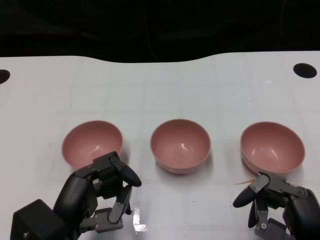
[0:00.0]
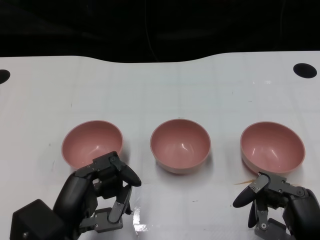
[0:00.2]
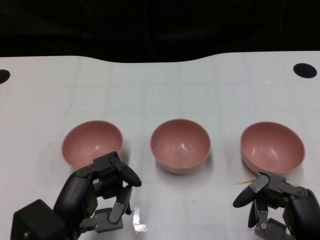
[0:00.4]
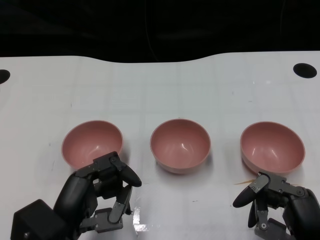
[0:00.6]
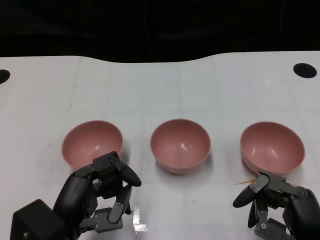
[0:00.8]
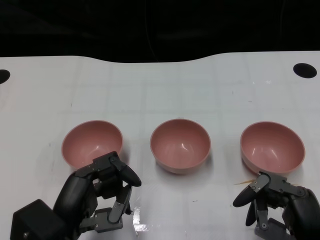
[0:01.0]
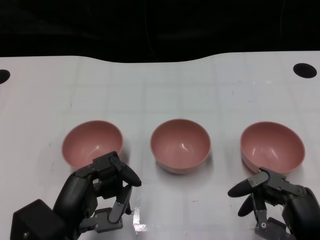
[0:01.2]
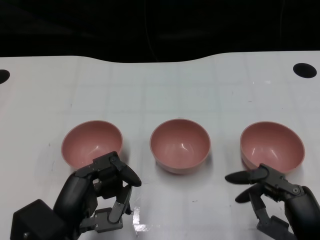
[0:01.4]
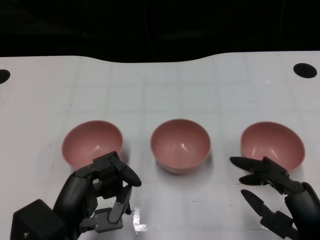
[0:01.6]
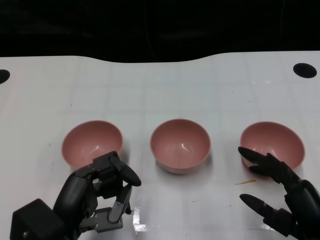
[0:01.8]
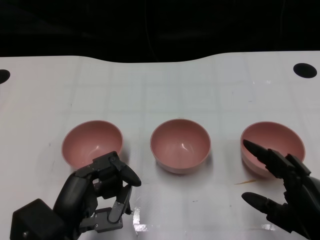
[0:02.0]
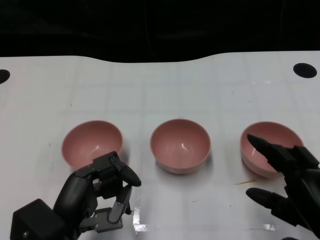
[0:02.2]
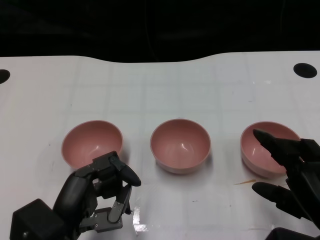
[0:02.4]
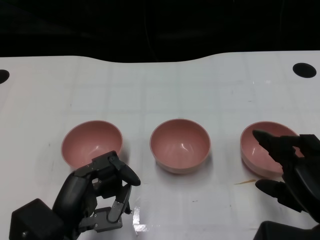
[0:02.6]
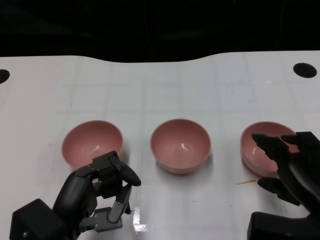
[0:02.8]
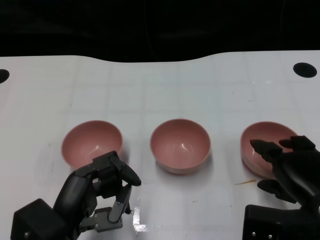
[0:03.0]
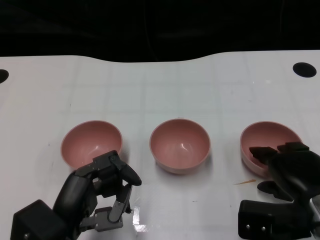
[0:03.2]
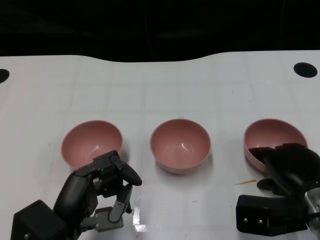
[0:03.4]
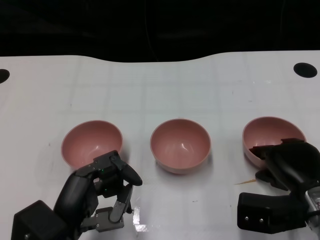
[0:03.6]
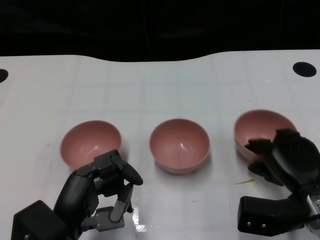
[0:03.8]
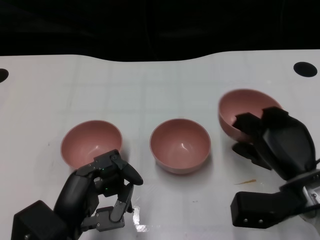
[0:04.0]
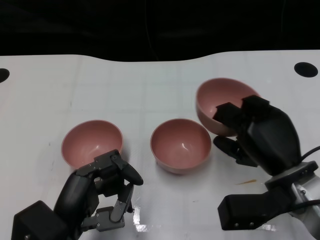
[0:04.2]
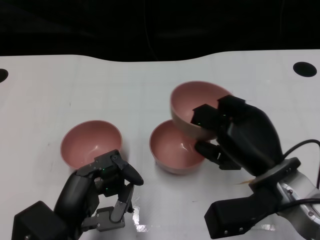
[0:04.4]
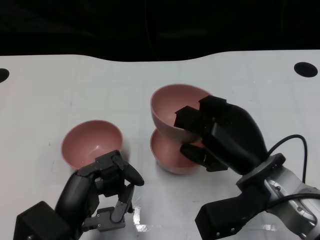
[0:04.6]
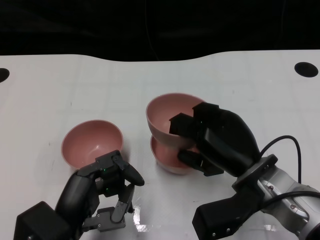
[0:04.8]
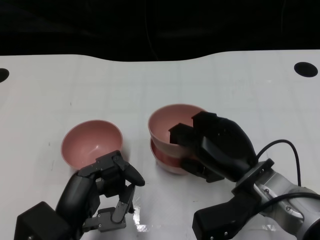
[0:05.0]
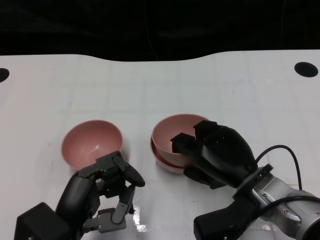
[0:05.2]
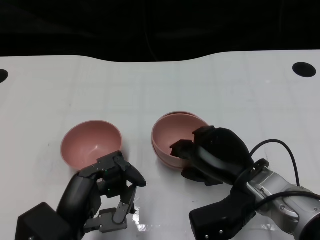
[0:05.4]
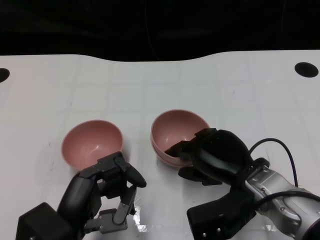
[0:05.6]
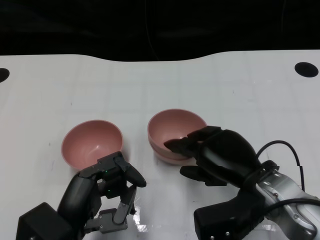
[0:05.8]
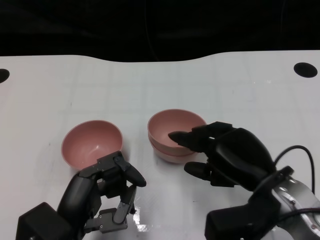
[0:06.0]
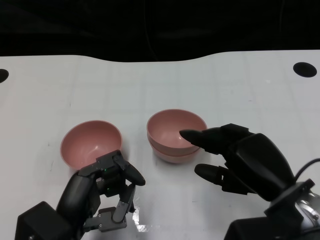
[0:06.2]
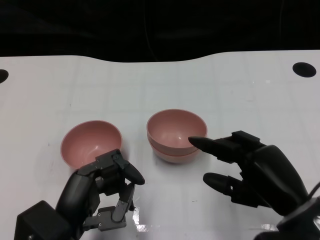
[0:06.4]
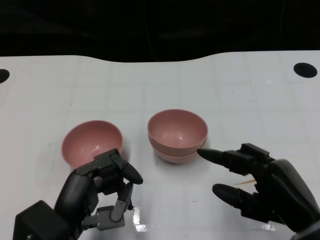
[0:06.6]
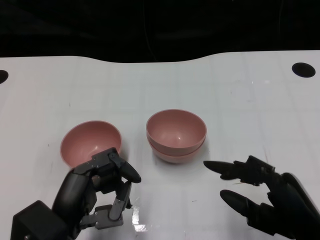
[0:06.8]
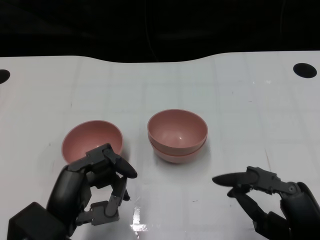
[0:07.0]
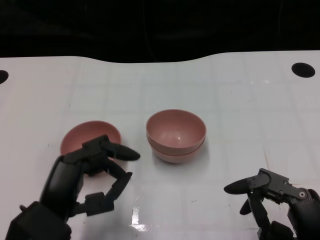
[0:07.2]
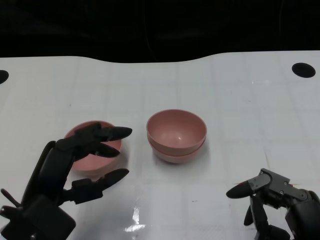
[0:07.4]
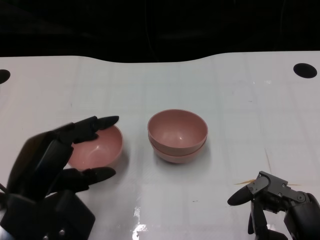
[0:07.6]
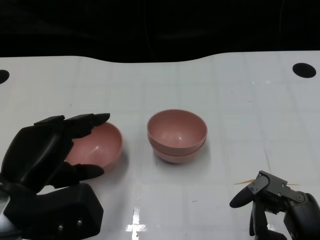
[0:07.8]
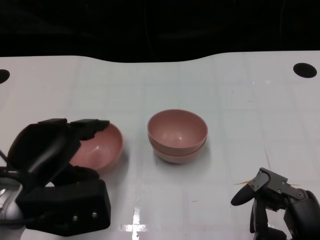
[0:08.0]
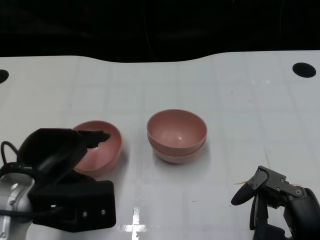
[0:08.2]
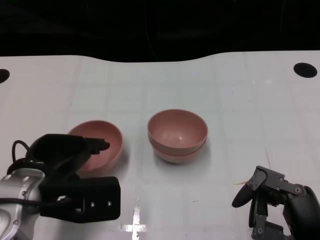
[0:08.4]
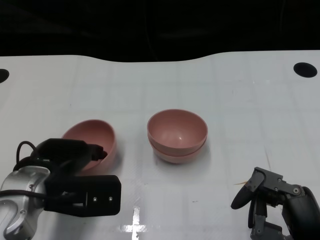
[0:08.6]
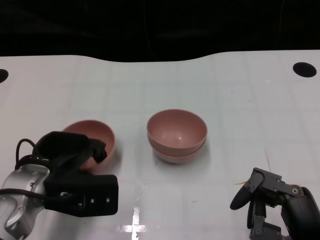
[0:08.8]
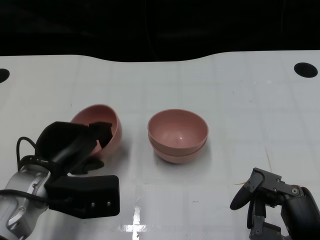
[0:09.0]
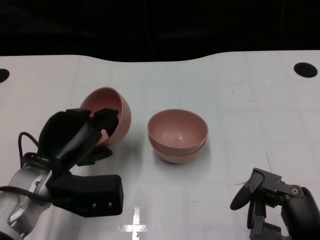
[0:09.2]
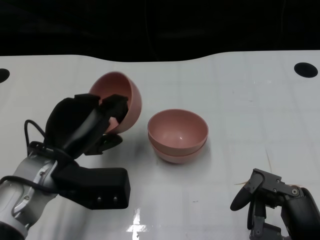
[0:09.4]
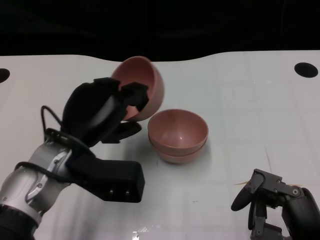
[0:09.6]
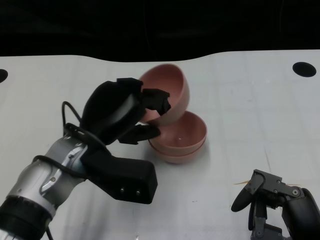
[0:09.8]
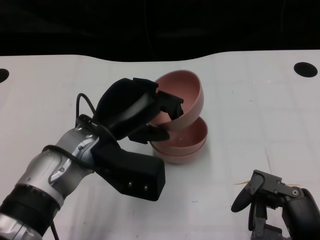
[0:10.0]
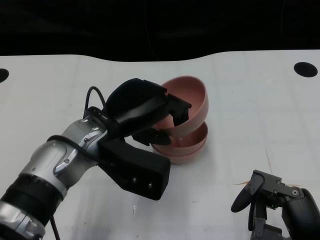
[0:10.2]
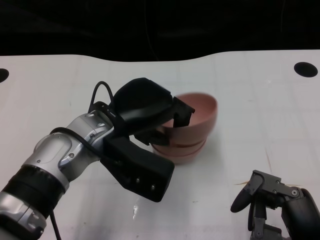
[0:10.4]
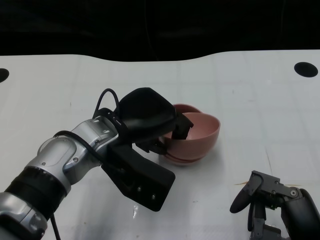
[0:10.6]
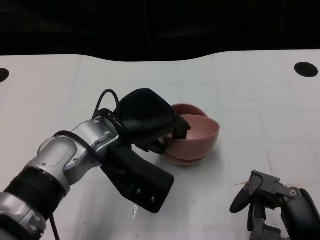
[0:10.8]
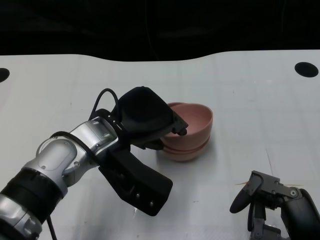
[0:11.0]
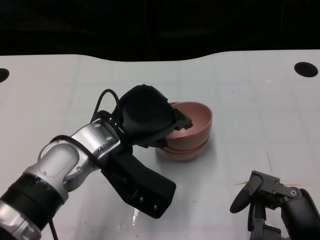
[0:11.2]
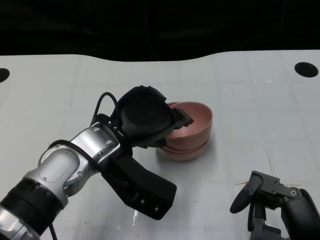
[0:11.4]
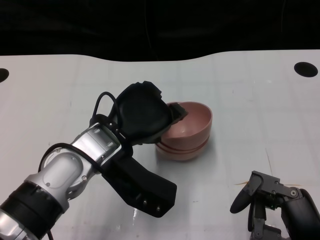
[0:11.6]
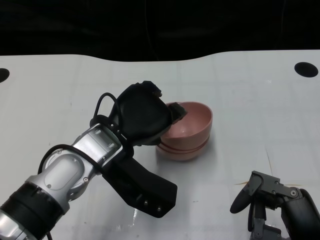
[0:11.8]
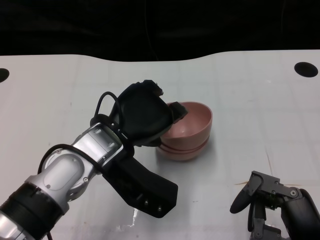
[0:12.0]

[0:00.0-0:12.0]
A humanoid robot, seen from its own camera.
Task of the whole recording: Pick up the bowl on one side of the table and place it on top of the middle bowl, then pick up the bowl on the other side of the table and place it on top of the middle bowls.
Step, 0:01.0 to 0:03.6: Grasp the bowl on the right with the right gripper.
Step, 0:04.0 to 0:06.4: Place the bowl on the right onto the bowl in the middle with right gripper.
Step, 0:06.6 to 0:08.8: Grasp the bowl on the left with the left gripper.
0:01.6 to 0:03.0: The right hand moves forward, some 5 cm.
0:03.0 to 0:04.4: The right hand moves to the left, some 5 cm.
0:06.0 to 0:07.6: The right hand heads backward and to the right, covering some 10 cm. The left hand goes about 5 cm upward.
0:07.6 to 0:09.0: The left hand heads forward, covering some 5 cm.
0:09.0 to 0:10.4: The left hand shifts roughly 10 cm to the right and upward.

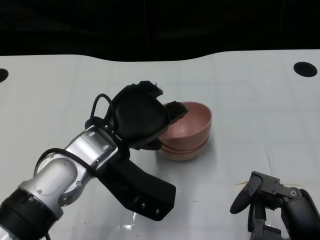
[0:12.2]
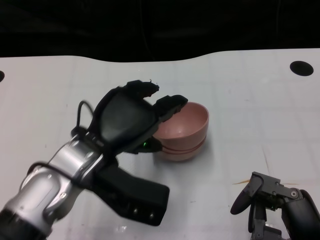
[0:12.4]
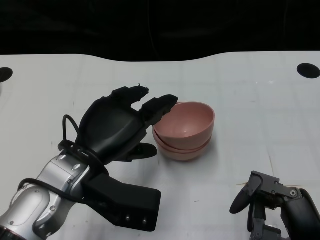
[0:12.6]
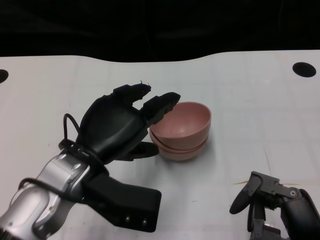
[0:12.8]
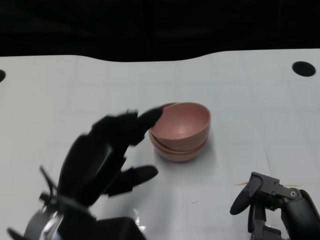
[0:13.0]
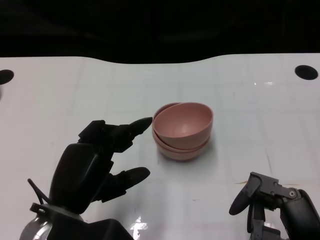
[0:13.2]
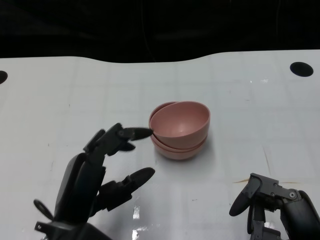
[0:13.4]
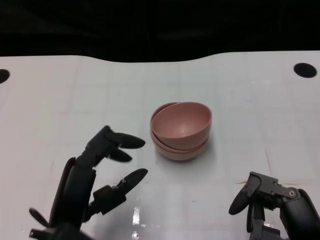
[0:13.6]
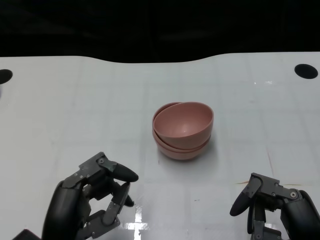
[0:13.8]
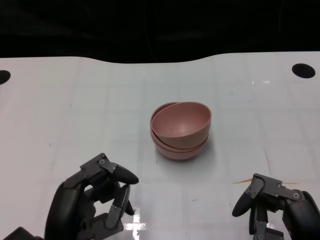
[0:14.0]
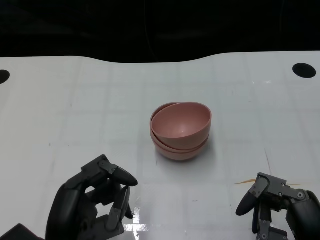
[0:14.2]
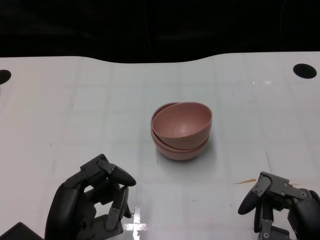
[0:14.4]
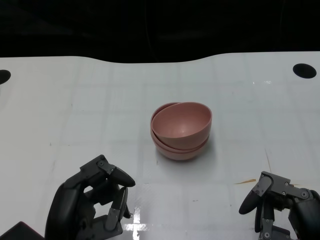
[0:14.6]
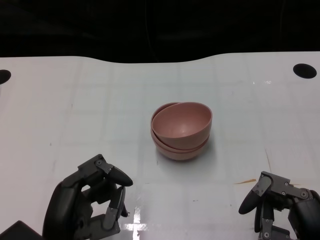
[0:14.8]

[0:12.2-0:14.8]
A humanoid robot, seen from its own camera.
Task of the whole recording: Pick up the bowl on one side of the table and place it on top of the middle bowl, then pick up the bowl on the other side of the table and place it on top of the middle bowls.
0:12.2 to 0:13.4: The left hand moves backward and downward, about 10 cm.
